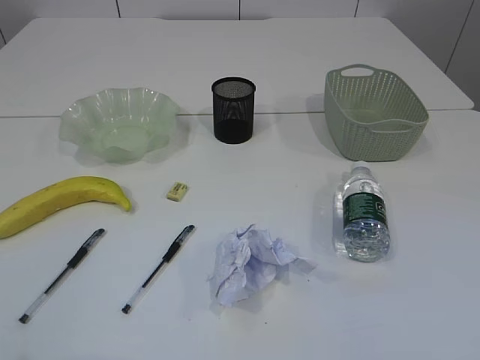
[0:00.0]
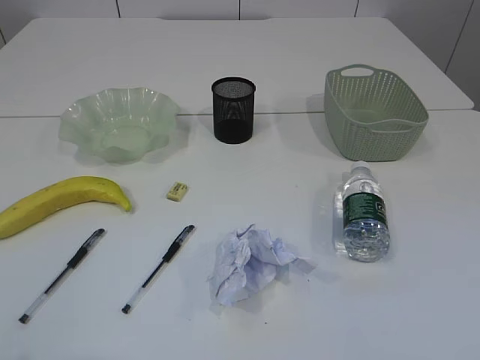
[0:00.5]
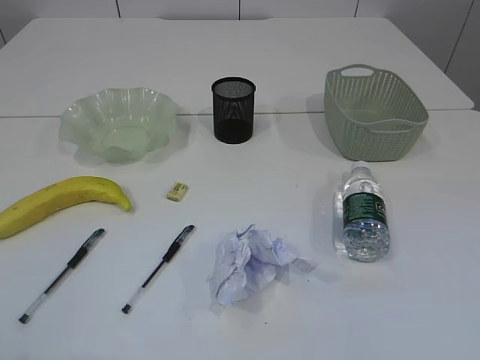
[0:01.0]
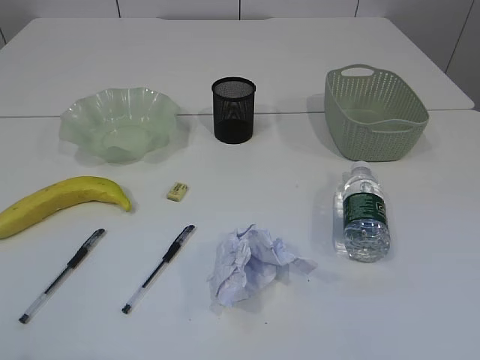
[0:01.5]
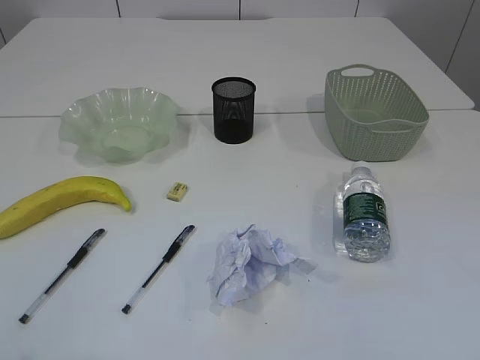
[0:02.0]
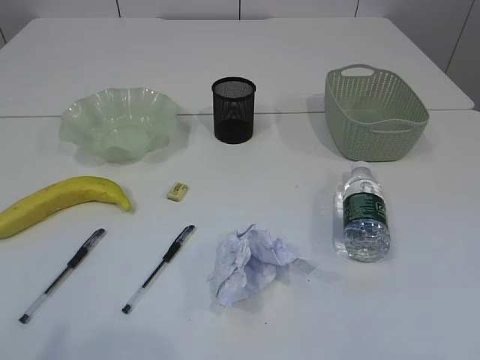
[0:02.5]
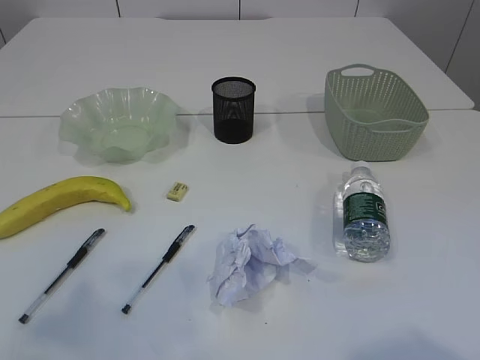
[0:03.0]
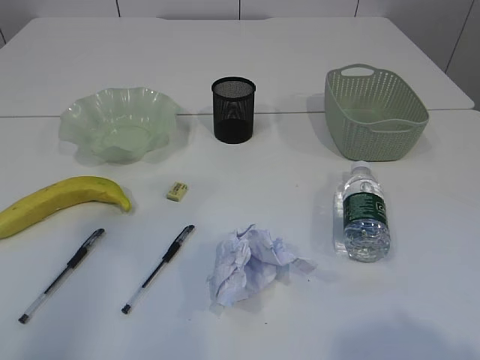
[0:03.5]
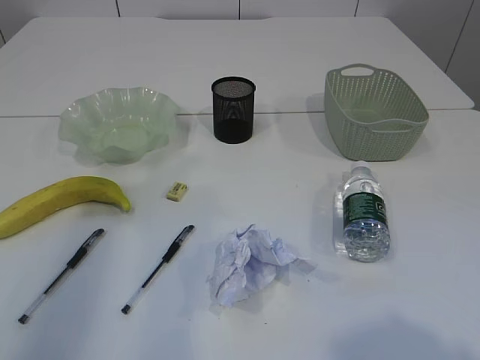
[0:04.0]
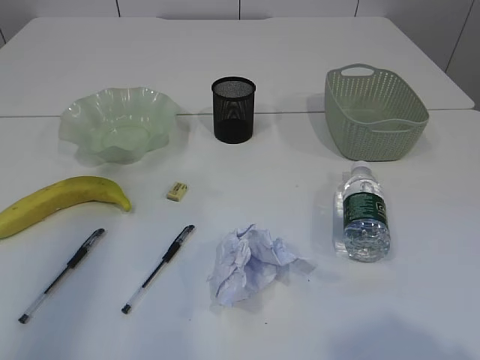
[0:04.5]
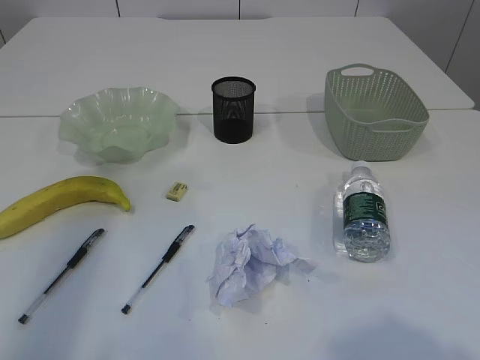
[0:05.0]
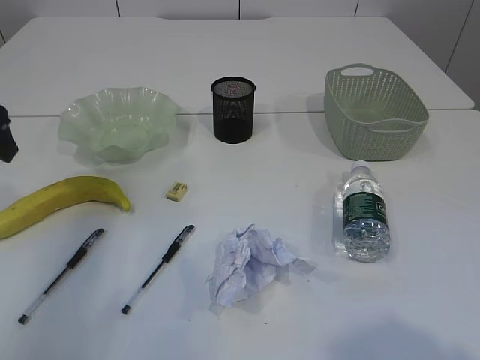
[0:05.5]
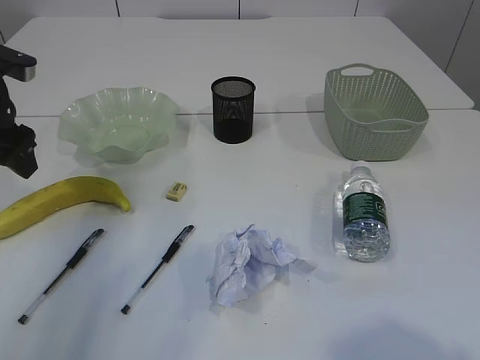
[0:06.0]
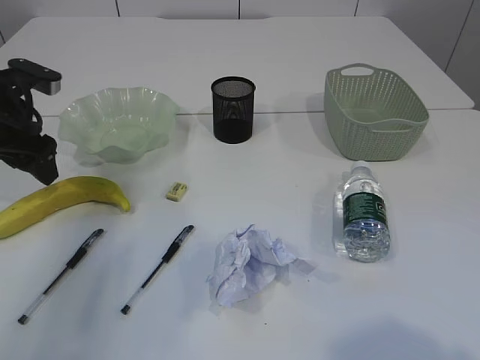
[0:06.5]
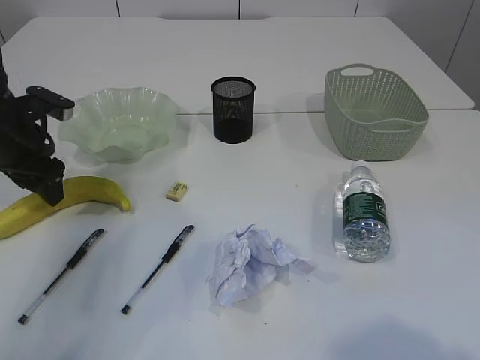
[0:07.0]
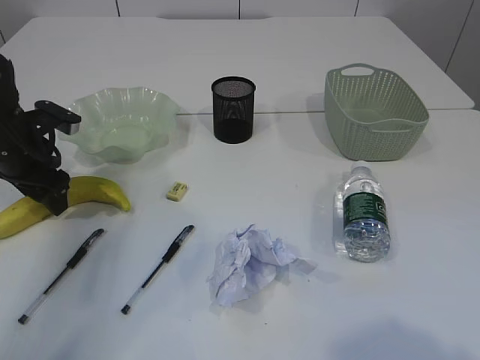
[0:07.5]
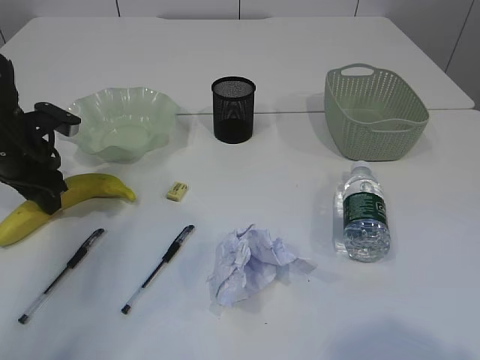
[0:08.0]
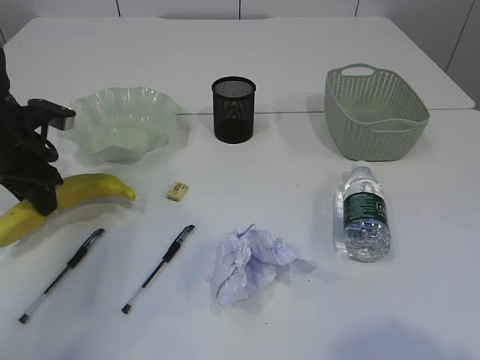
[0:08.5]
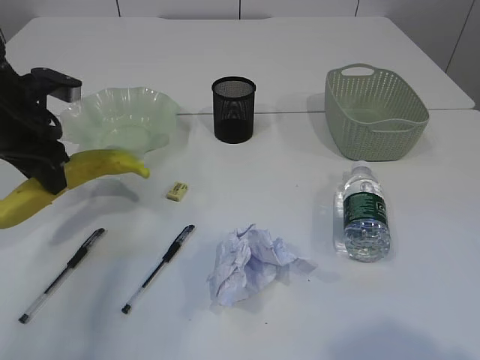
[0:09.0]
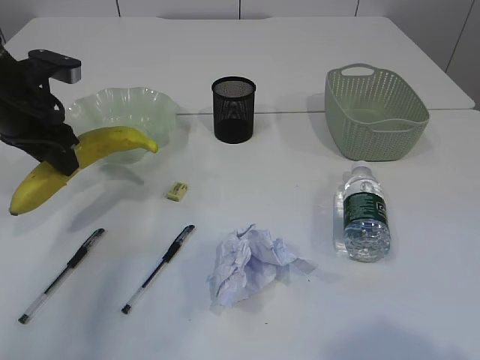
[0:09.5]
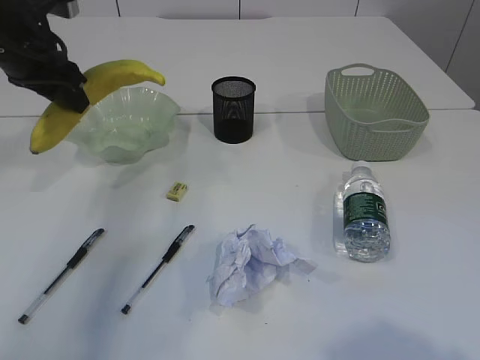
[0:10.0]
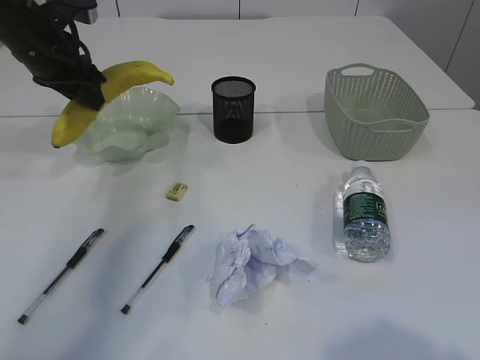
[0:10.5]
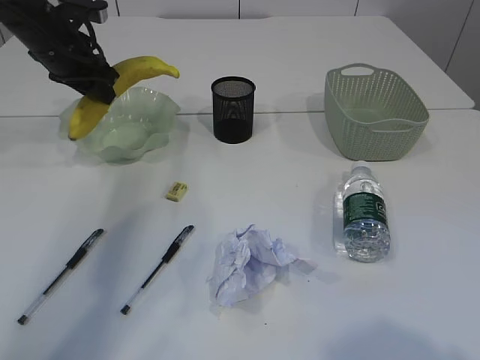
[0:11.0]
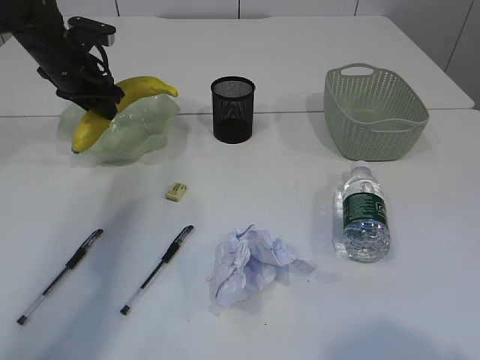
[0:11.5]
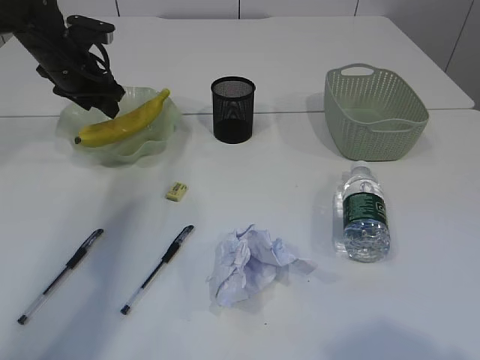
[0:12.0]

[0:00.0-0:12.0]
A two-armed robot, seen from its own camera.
0:02.0 to 0:04.0: The left gripper shifts some 25 cm forward.
0:04.0 to 0:06.0: The left gripper shifts roughly 20 cm downward and forward.
0:06.0 to 0:08.0: The left gripper heads downward, covering some 10 cm, and closes.
0:08.0 to 0:10.0: The left gripper heads upward, covering about 15 cm.
0:10.0 to 0:12.0: The left gripper heads forward and downward, covering about 10 cm.

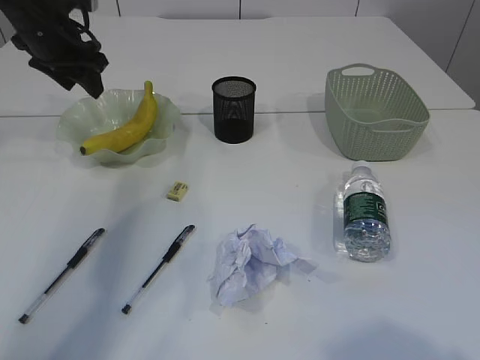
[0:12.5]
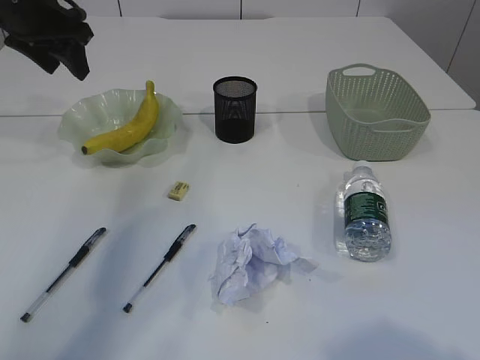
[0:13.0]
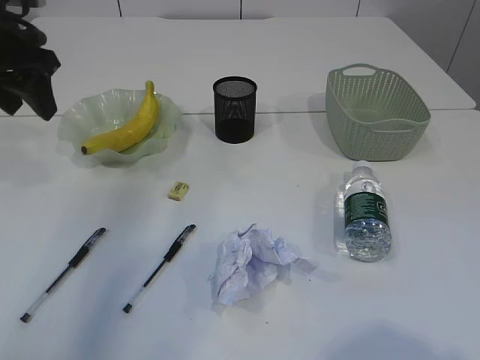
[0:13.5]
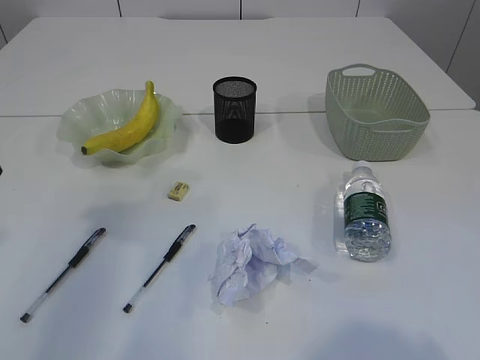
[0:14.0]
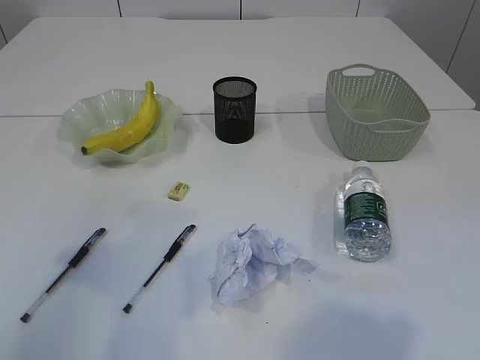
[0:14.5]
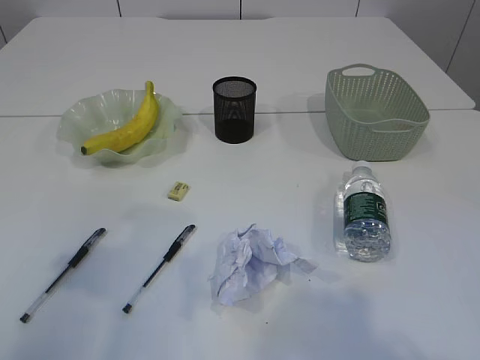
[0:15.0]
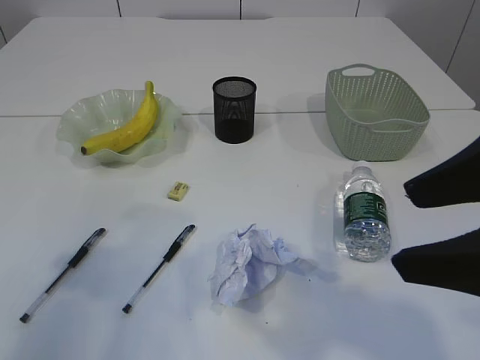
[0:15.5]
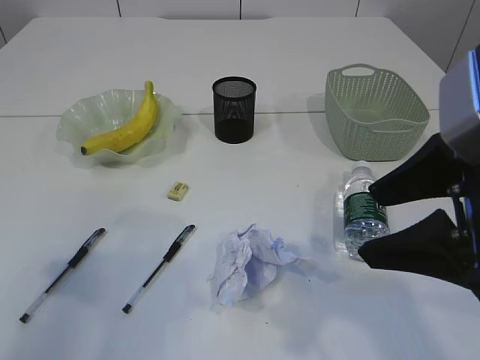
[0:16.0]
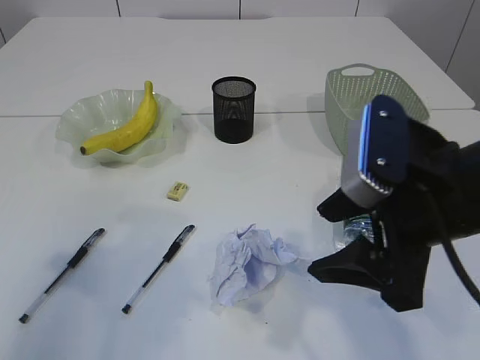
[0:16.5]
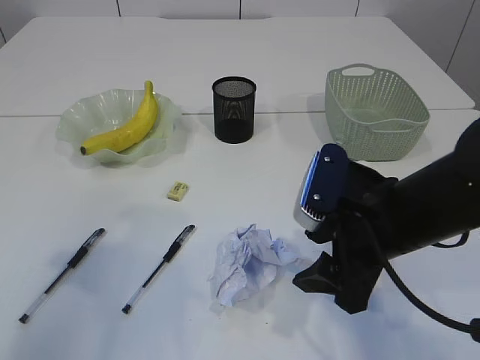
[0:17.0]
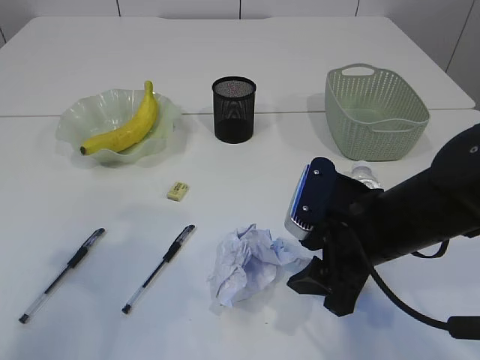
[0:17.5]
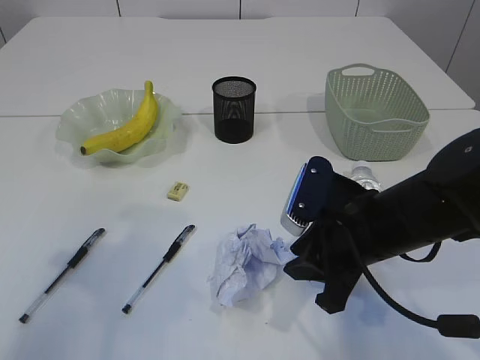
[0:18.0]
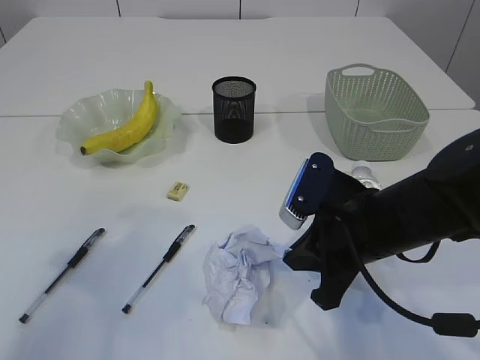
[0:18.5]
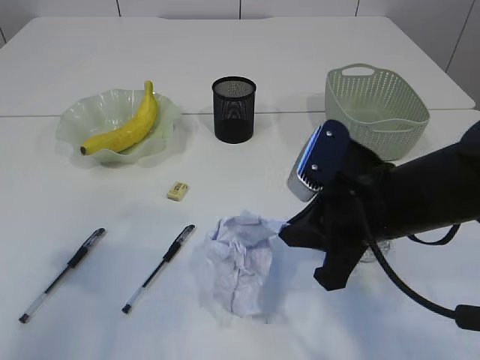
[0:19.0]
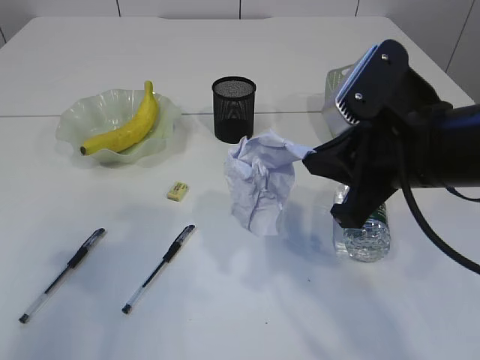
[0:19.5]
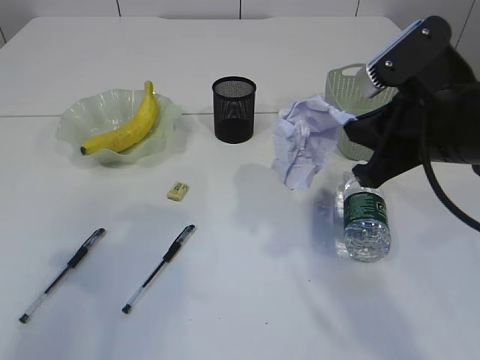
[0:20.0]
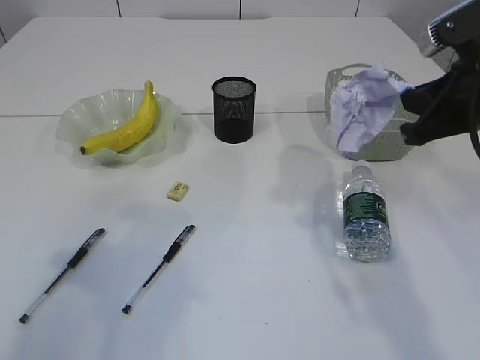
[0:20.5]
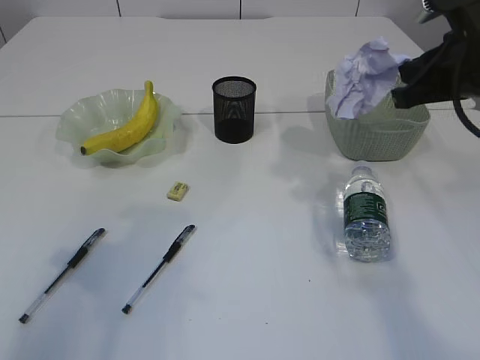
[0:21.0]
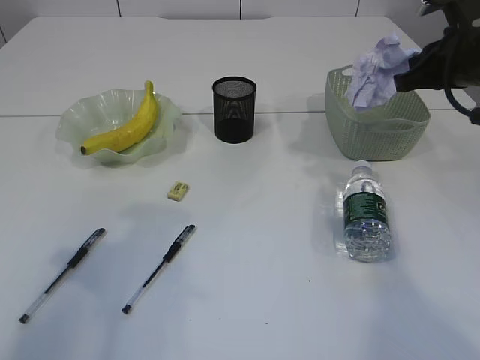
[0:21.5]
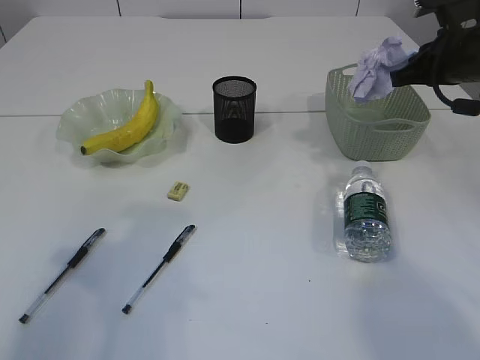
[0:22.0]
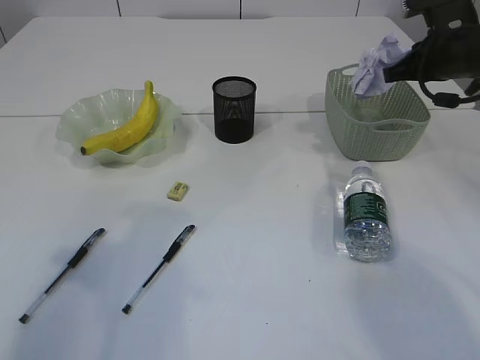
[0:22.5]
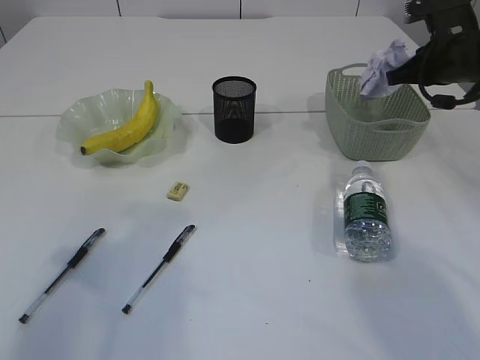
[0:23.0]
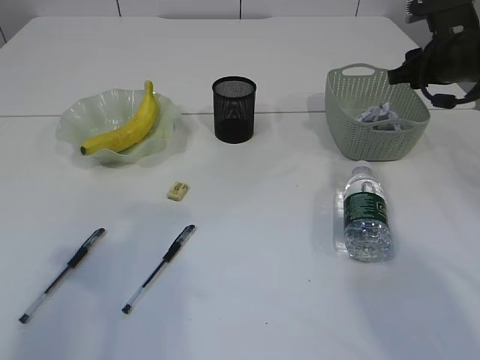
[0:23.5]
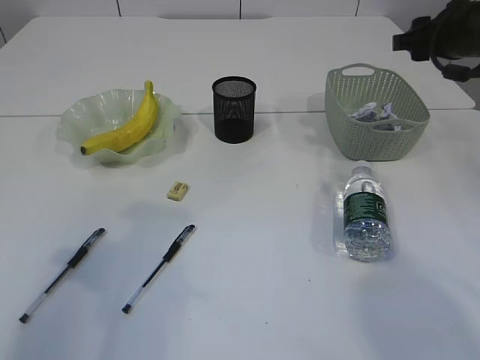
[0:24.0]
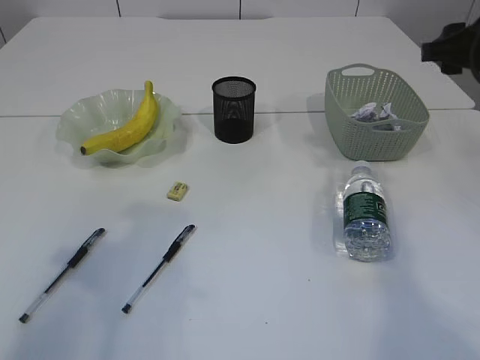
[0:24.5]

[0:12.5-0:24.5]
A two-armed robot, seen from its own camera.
Step, 0:13.5 to 0:19.0: Pick up the waste paper.
Step, 0:19.5 to 0:23.5: Place the waste paper in the basket.
0:12.5 to 0:14.5: The left gripper moves backward, approximately 30 cm.
0:14.5 to 0:16.5: The right gripper shifts some 20 cm forward, downward and to the left.
0:16.5 to 0:18.5: The right gripper goes about 10 cm downward and forward, and closes up.
0:18.5 to 0:20.5: The right gripper moves upward and to the right, roughly 15 cm.
0:20.5 to 0:22.5: The right gripper moves forward, approximately 15 cm.
0:22.5 to 0:24.5: The right gripper is displaced backward by approximately 5 cm, and opens up.

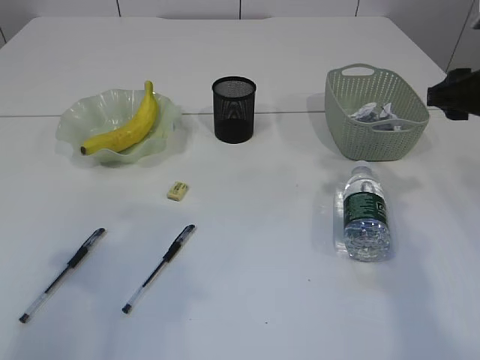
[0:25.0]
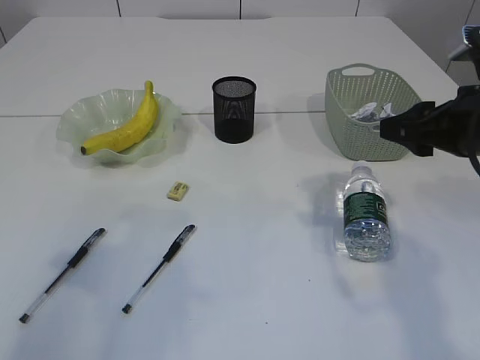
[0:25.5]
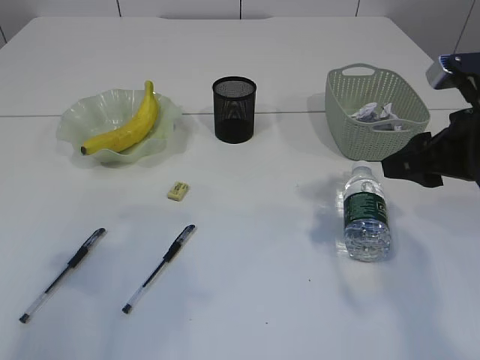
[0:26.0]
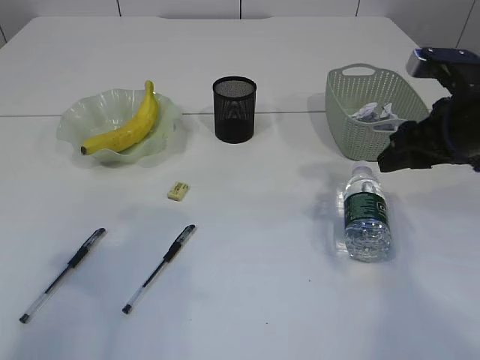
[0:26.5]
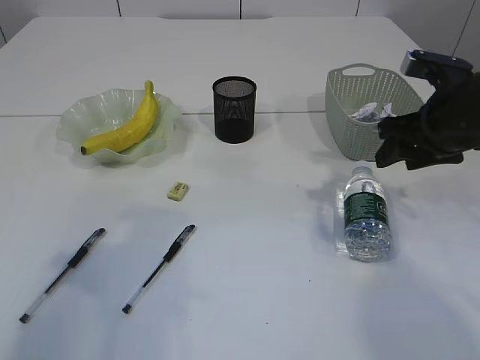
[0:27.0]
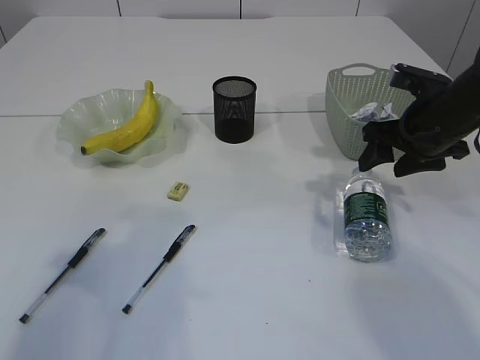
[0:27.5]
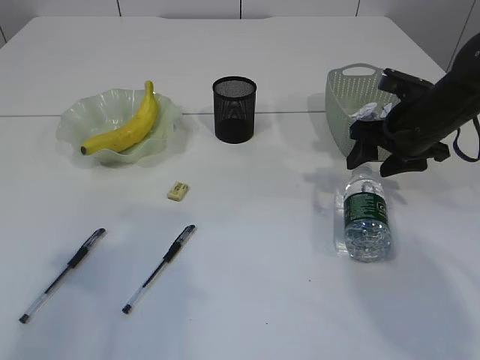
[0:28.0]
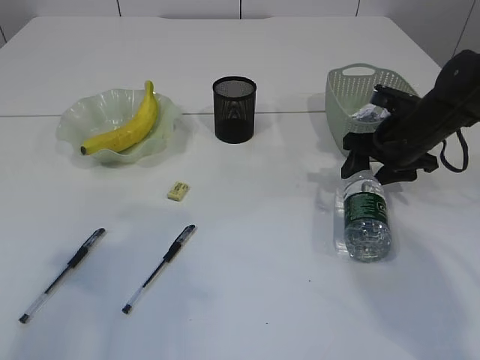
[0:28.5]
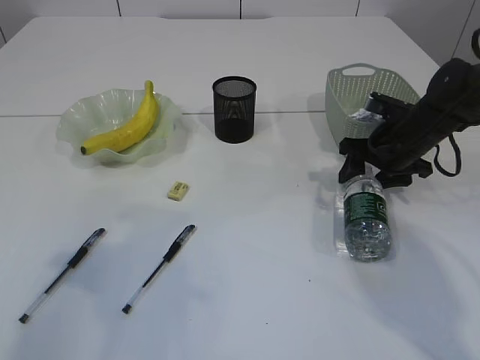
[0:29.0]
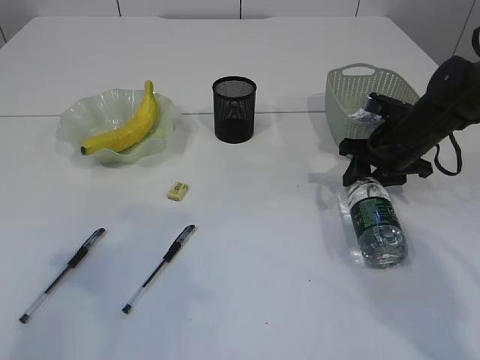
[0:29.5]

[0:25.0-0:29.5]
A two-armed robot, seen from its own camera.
0:25.0 to 0:27.0: The right gripper shifts by approximately 5 cm.
0:27.0 to 0:29.5: The right gripper goes roughly 10 cm downward and forward.
